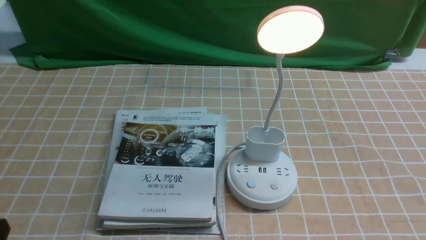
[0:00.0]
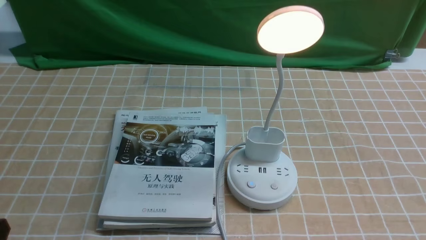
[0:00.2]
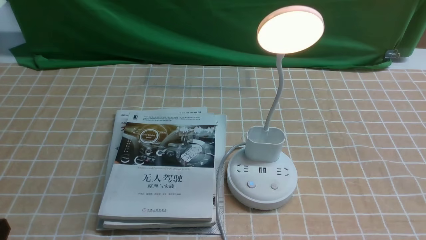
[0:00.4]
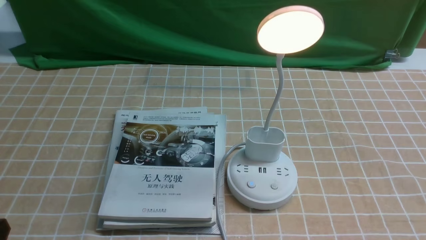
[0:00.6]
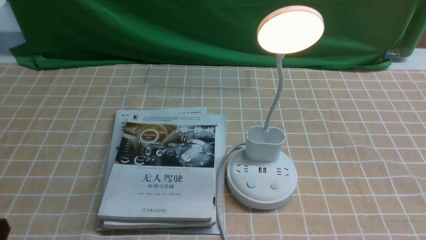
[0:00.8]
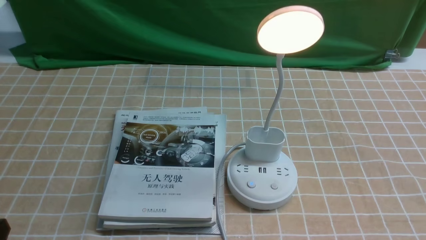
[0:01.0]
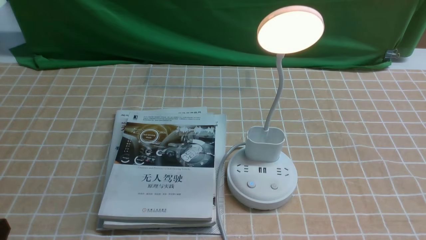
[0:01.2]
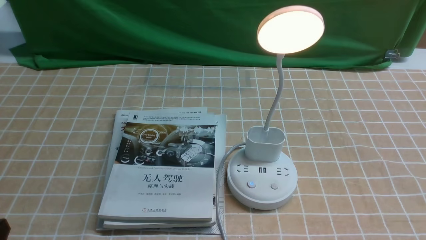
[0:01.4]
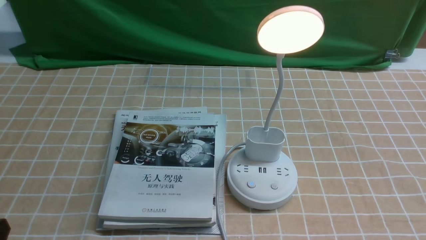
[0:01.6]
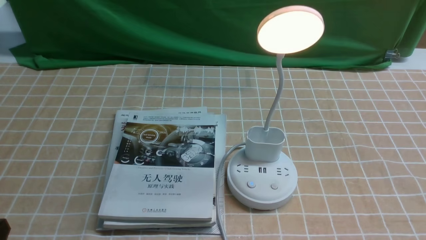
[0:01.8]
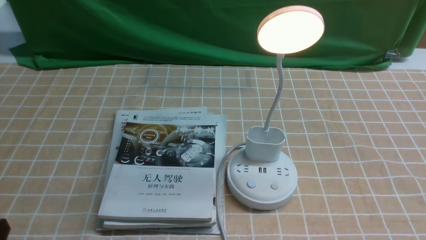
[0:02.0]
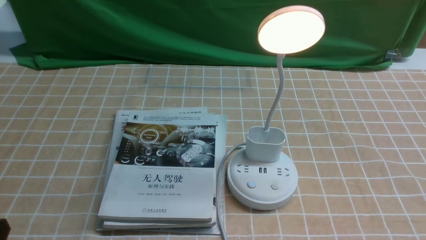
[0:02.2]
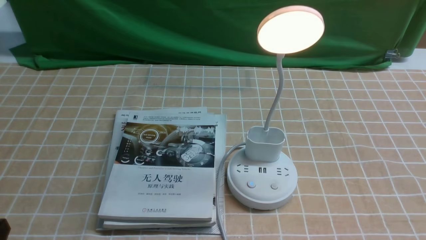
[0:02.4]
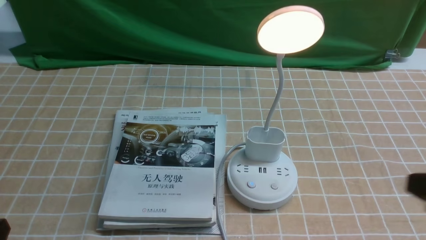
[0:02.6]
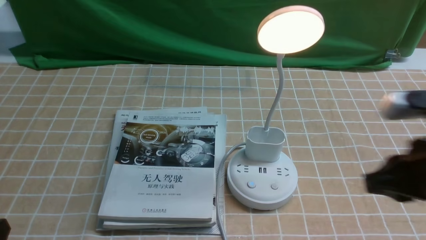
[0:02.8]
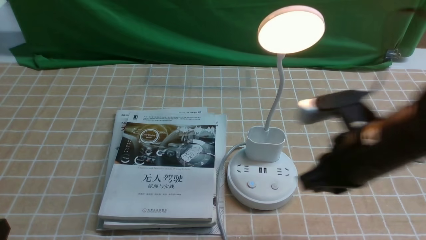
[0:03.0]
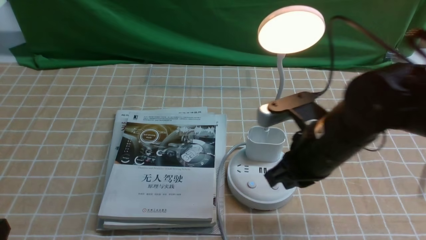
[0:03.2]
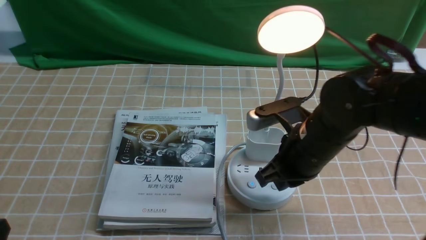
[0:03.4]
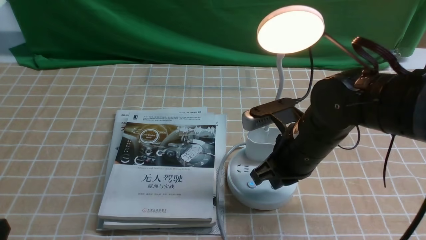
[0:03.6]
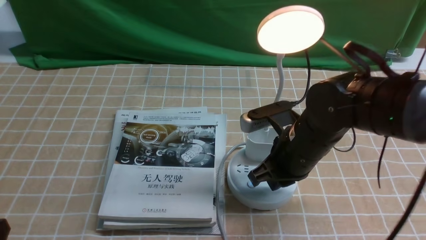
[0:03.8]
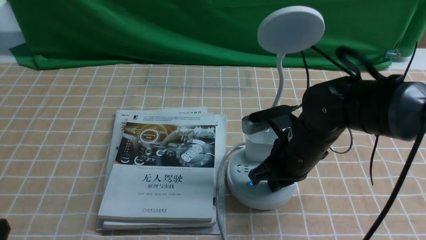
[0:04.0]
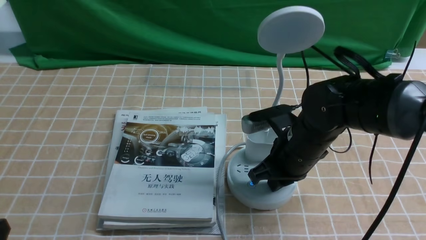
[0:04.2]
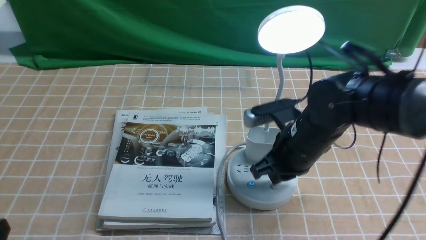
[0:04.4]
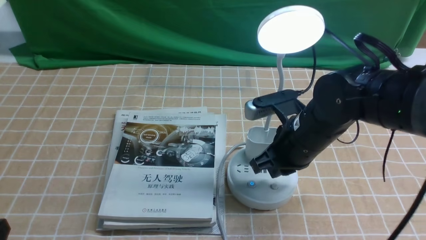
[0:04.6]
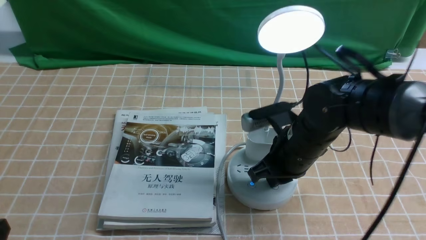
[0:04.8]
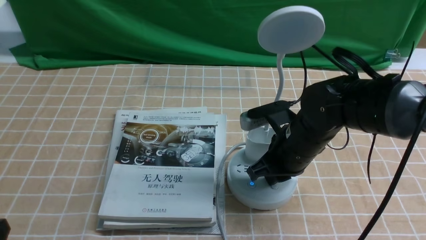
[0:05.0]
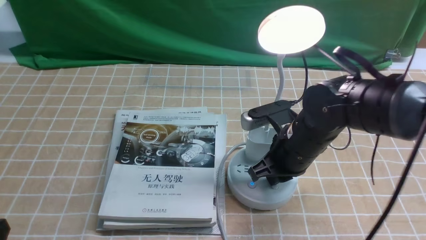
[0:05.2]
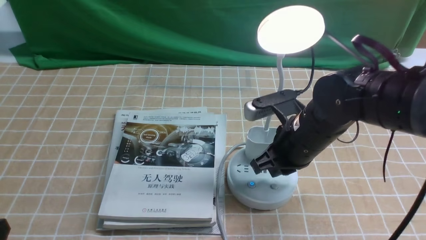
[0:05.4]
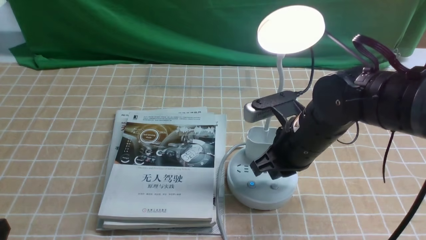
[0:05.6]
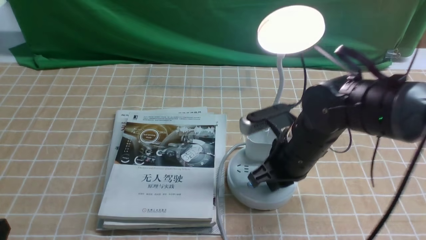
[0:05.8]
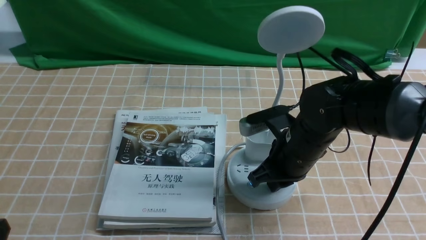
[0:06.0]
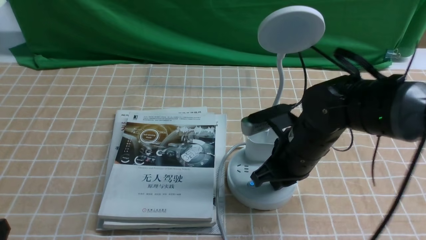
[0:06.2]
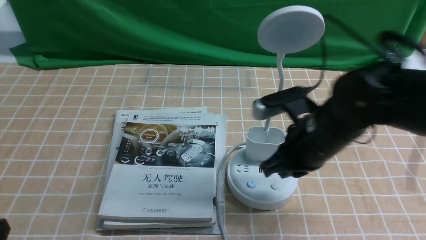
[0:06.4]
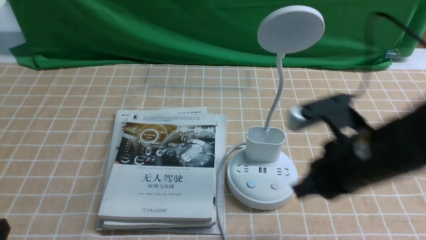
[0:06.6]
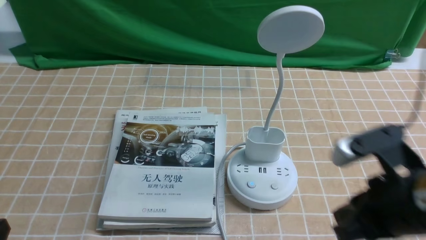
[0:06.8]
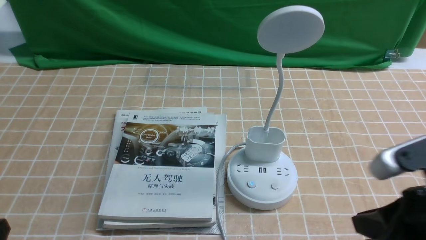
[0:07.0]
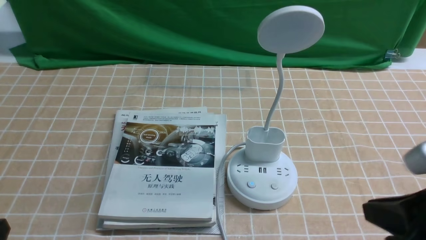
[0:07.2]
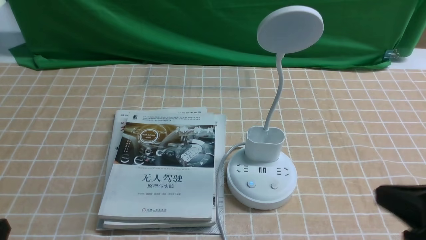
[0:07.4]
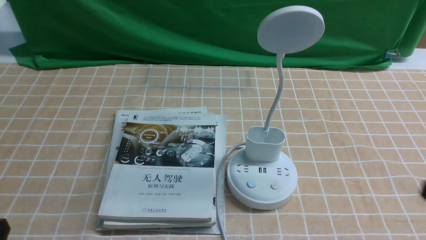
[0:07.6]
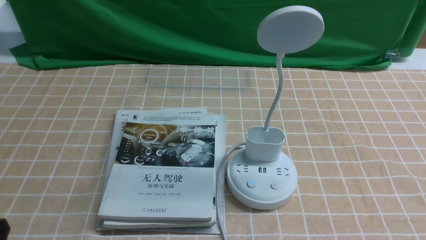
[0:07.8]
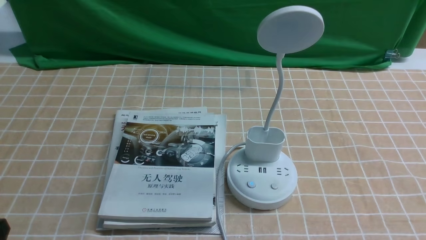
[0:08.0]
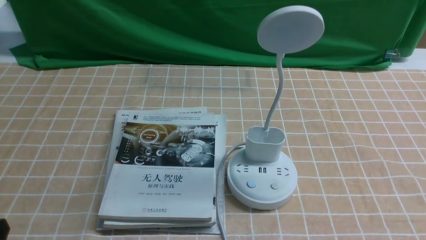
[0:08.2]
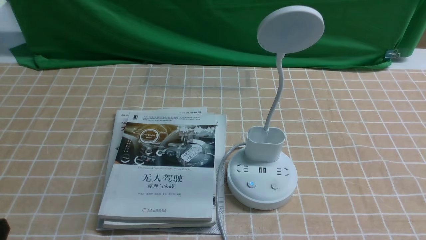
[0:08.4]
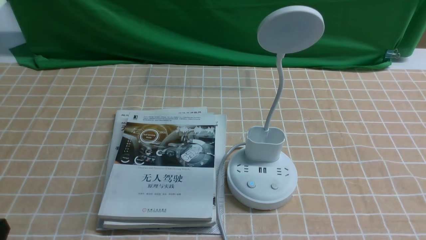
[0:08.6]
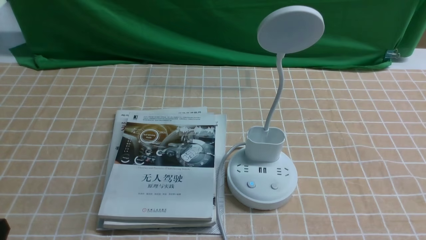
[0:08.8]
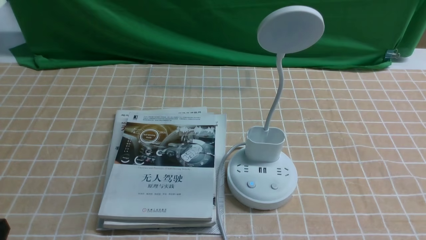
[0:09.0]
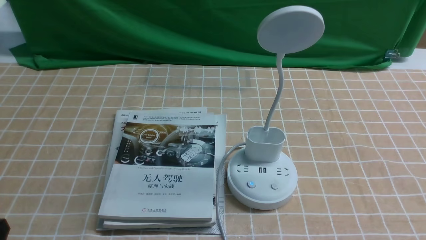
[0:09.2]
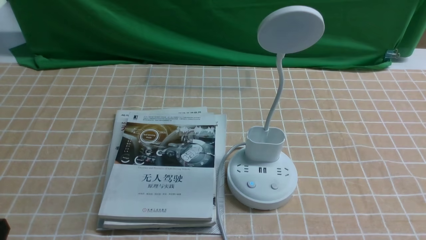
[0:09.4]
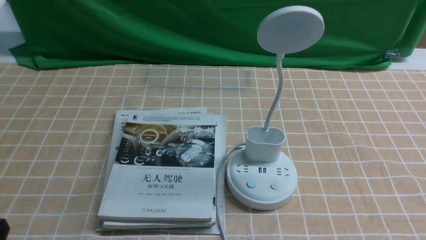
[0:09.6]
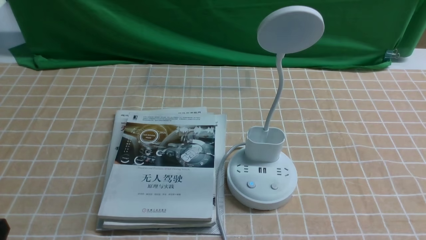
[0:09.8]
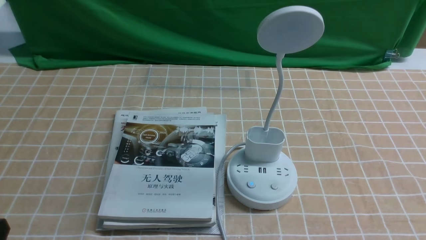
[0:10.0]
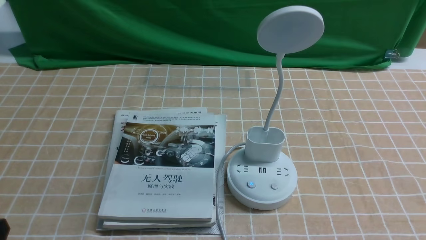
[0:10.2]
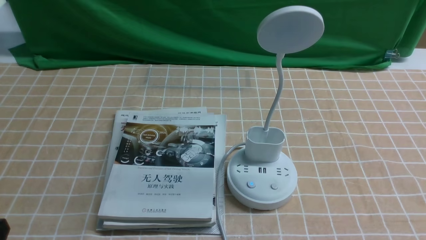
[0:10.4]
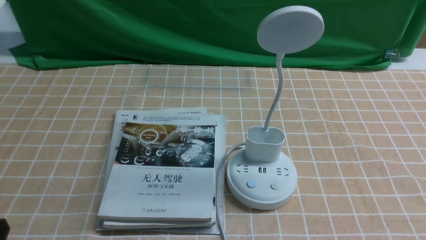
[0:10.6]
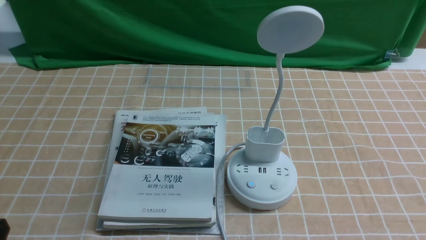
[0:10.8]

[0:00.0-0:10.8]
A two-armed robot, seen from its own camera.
Task of the whole recording: turn off the desk lamp on the light coffee tablecloth by hand.
Step, 0:00.0 to 0:06.2: use the right arm to press the button switch on the lamp holder.
0:01.6 to 0:03.0: The right gripper goes roughly 20 cm forward and to the left, and closes its fingers.
0:03.0 to 0:04.6: The right gripper heads forward, downward and to the left, covering roughly 10 cm.
0:04.6 to 0:06.2: There are only small adjustments of the grippers.
0:06.2 to 0:07.8: The right gripper heads backward and to the right, covering about 30 cm.

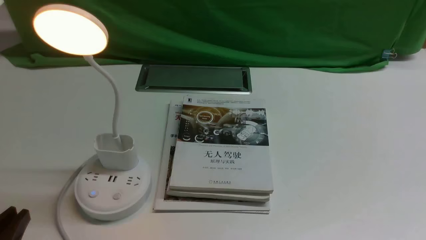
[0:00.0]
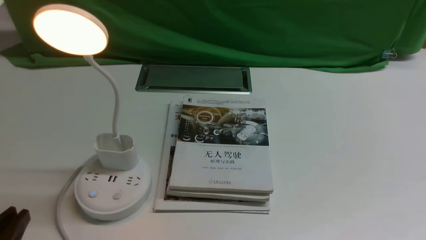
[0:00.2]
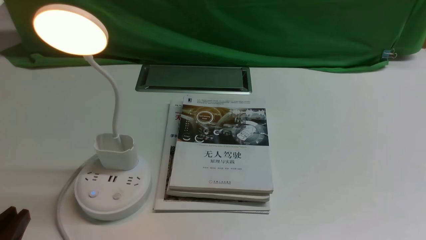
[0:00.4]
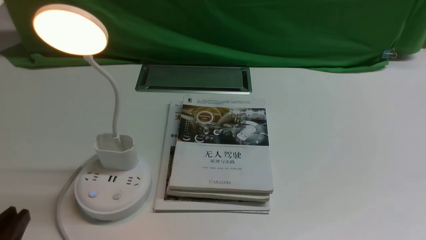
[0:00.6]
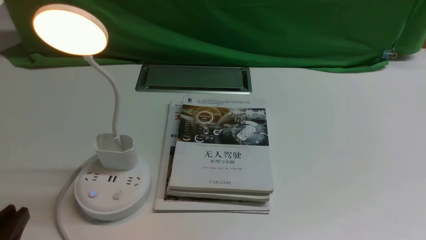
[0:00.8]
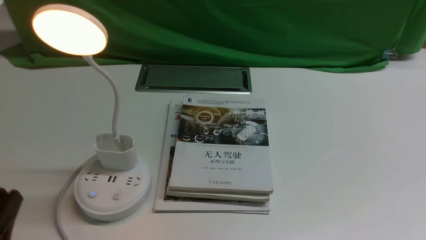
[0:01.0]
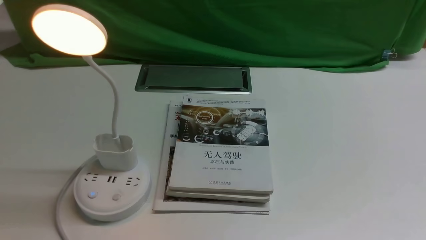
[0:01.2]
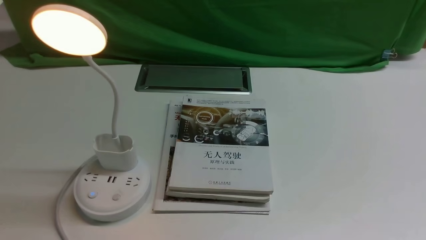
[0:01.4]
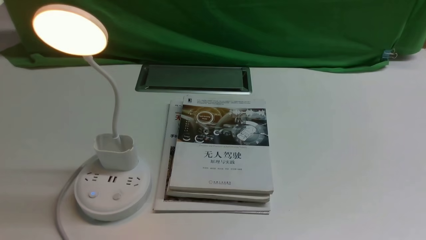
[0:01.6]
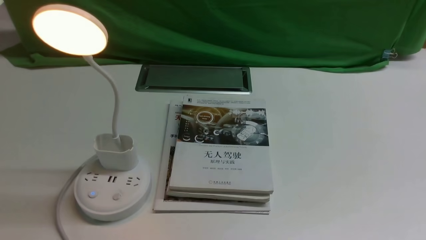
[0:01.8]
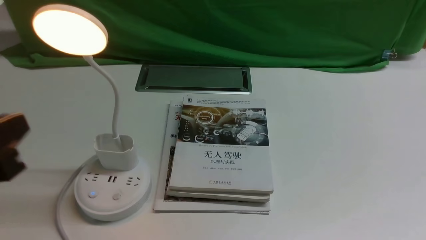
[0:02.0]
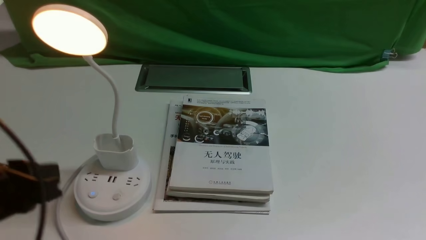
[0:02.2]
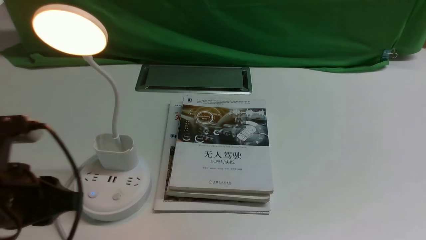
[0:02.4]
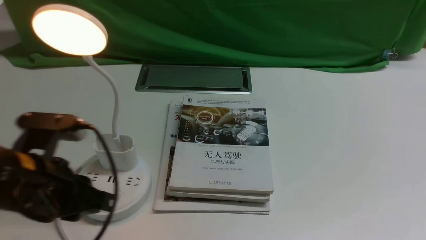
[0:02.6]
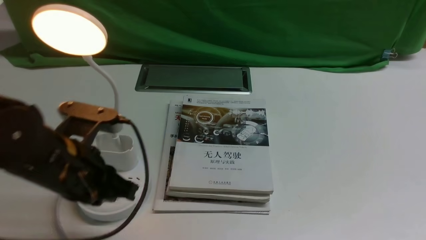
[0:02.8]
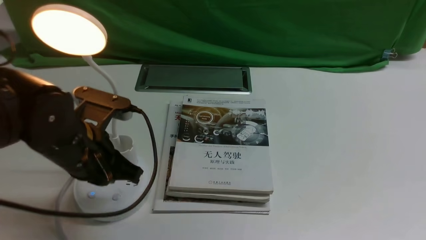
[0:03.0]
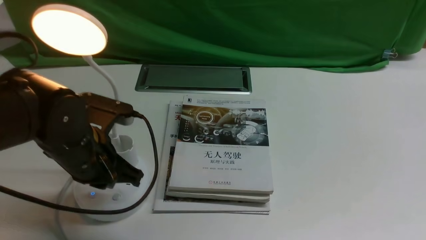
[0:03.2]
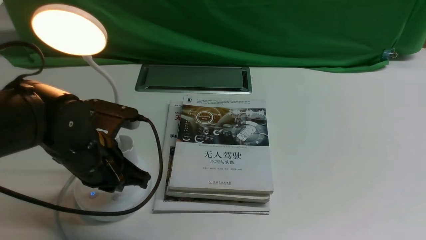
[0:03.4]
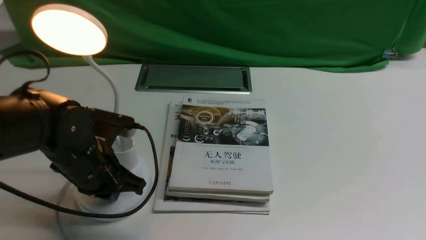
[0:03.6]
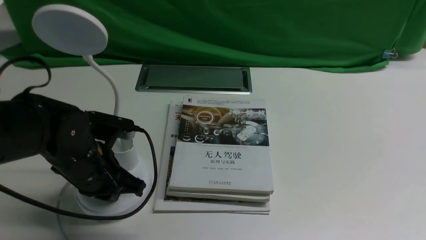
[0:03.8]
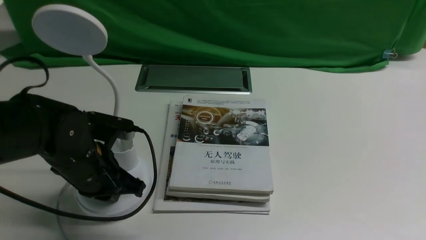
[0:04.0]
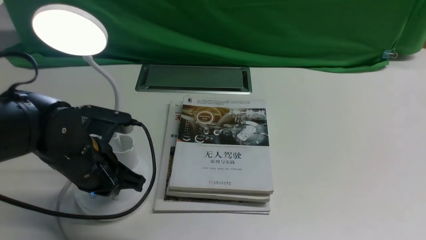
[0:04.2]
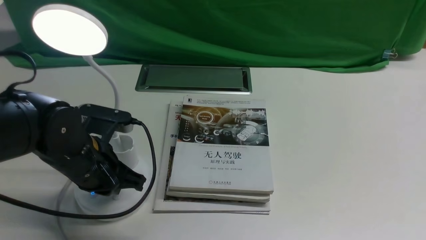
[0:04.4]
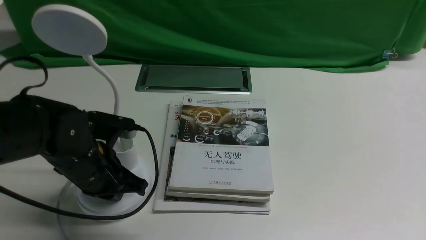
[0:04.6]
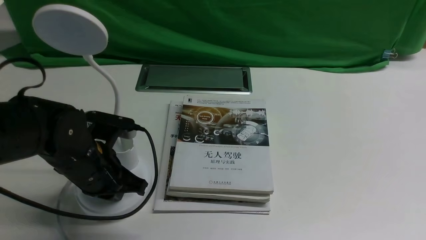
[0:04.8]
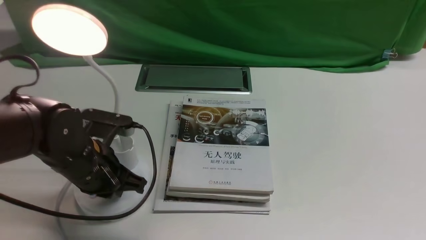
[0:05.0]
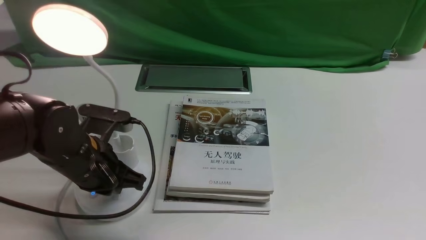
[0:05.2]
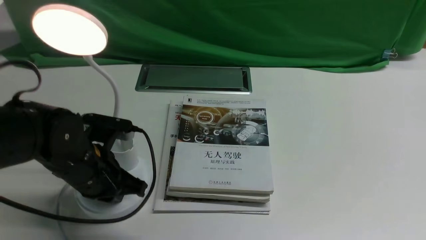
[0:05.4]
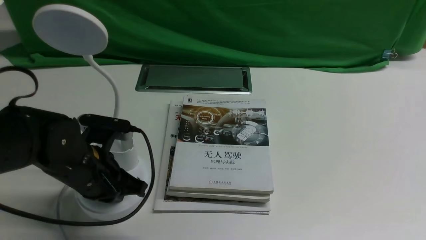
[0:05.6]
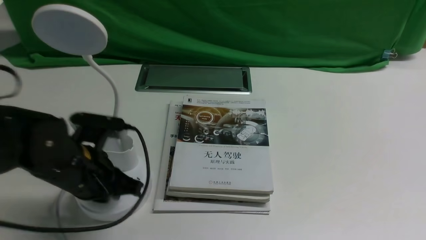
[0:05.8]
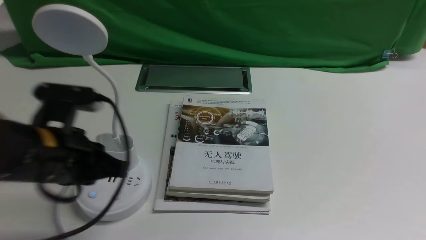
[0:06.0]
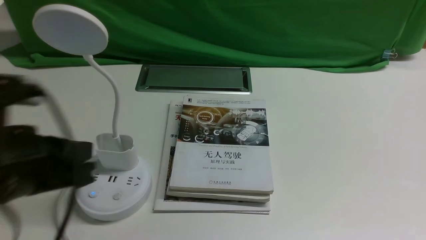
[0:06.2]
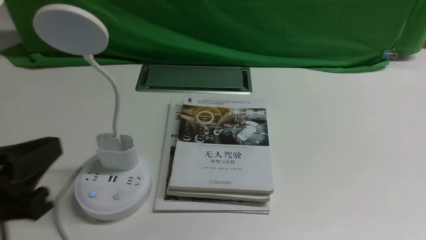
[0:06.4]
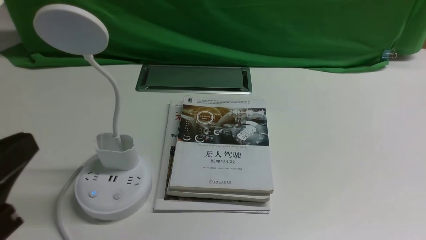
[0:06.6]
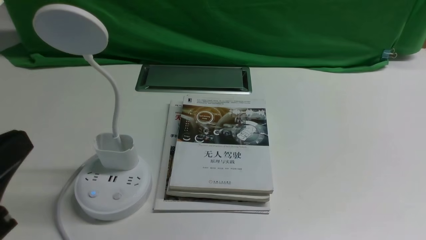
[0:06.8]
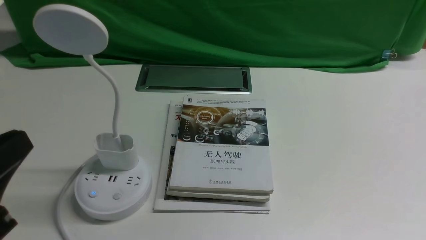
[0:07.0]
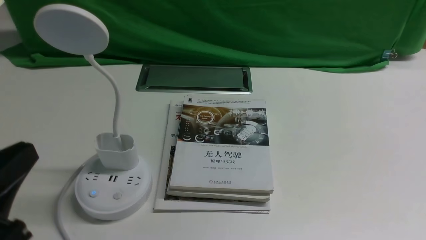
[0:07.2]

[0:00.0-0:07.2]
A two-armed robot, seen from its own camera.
Task of the whole recording: turn off the desk lamp on the white desktop by hand.
Step, 0:00.0 to 0:05.8: use the left arm to press the button switch on the lamp holder.
0:01.4 to 0:02.8: The left gripper travels forward and to the right by about 15 cm.
0:02.8 to 0:04.4: The left gripper goes approximately 10 cm downward and forward, and closes.
0:04.4 to 0:05.8: The grippers stay close to where they were, moving slightly.
0:05.8 to 0:07.2: The left gripper shifts approximately 20 cm backward and upward.
